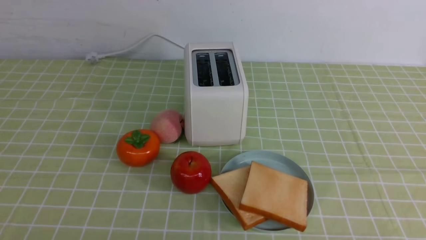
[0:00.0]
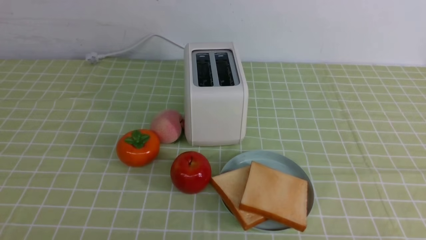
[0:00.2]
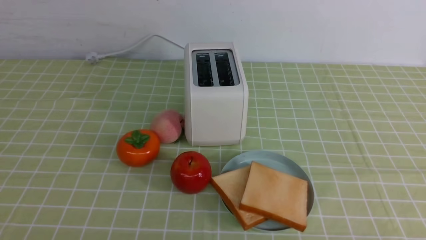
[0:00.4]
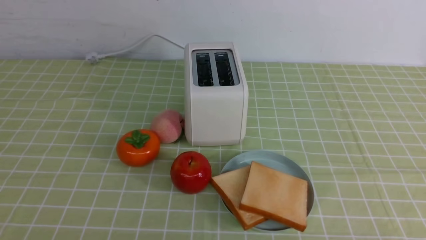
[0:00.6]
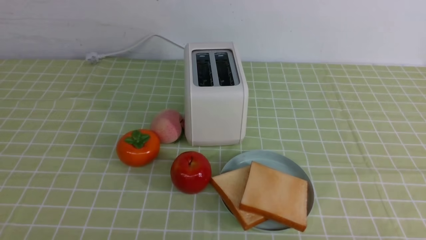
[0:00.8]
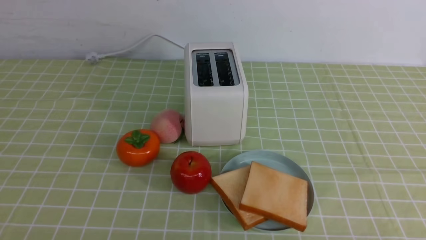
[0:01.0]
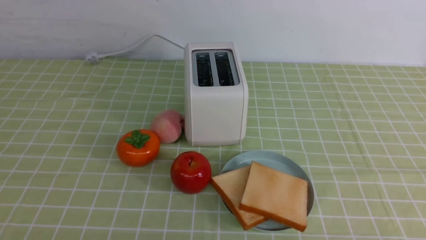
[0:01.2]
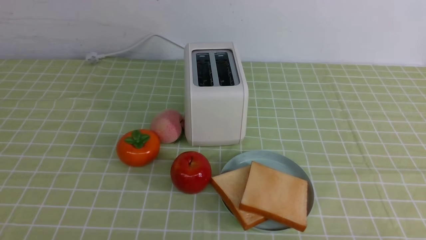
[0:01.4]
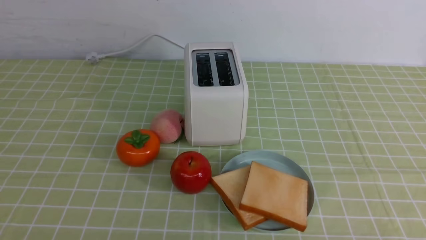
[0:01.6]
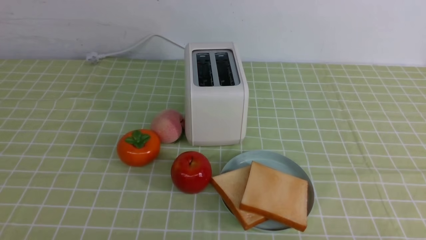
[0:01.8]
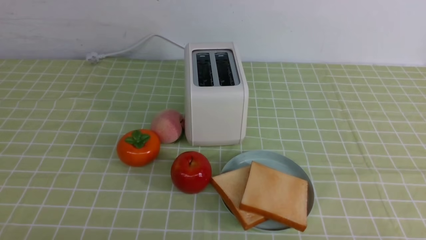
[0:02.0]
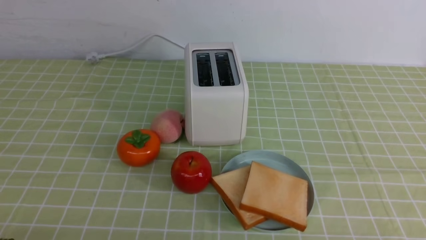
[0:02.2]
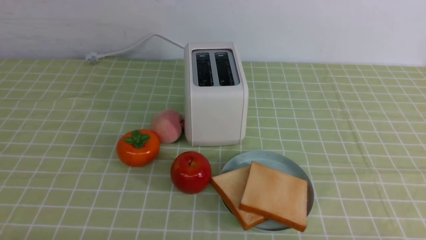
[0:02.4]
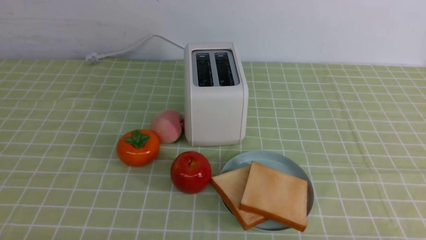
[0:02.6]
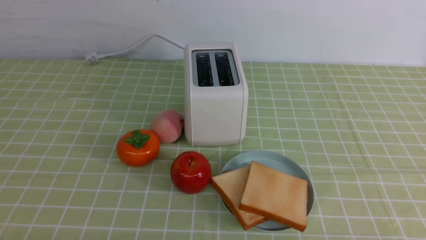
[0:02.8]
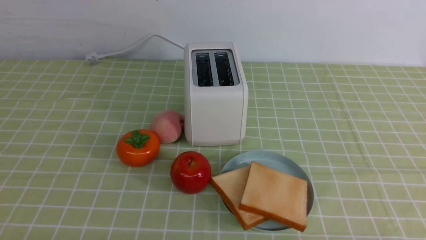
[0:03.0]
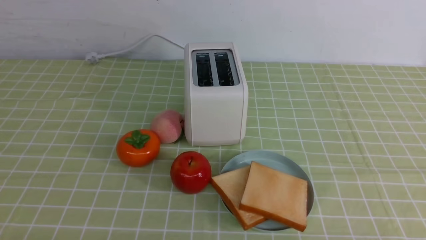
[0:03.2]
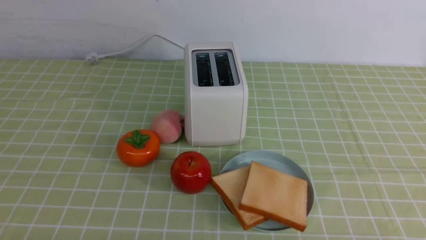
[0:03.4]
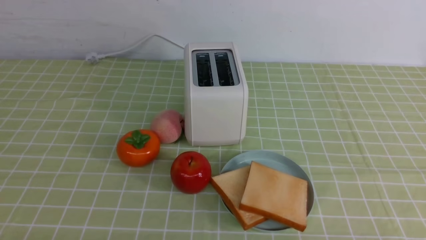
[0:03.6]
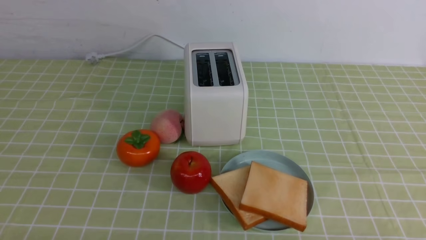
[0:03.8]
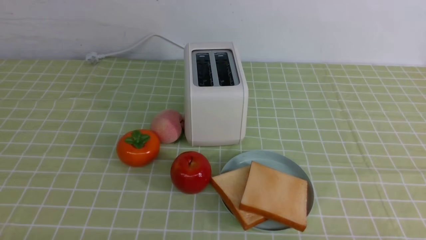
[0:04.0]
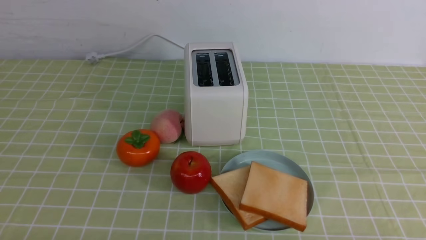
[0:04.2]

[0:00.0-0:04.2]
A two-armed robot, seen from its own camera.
Task of the whole recording: take toasted bread from bread machine on green coffee tablecloth place on plate.
0:02.8 to 0:04.2: Both grippers stay put.

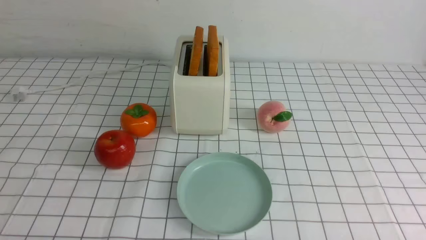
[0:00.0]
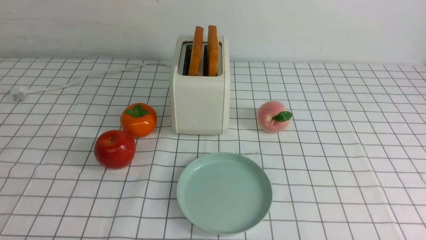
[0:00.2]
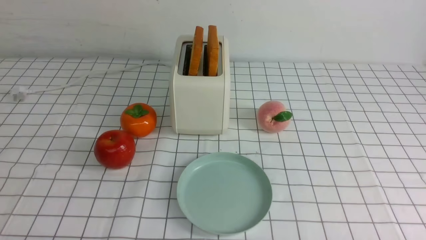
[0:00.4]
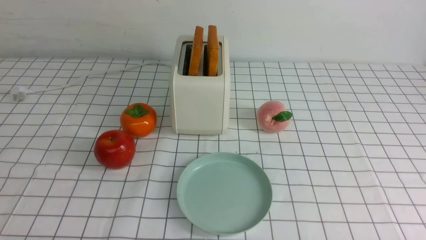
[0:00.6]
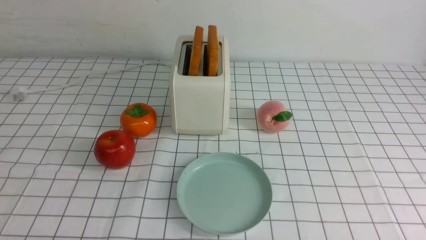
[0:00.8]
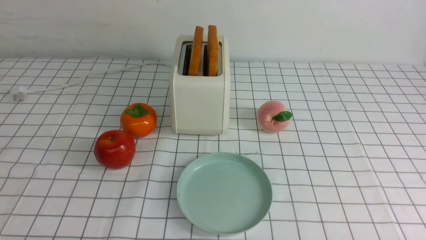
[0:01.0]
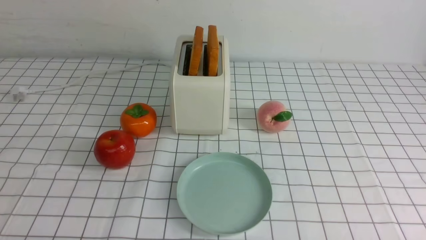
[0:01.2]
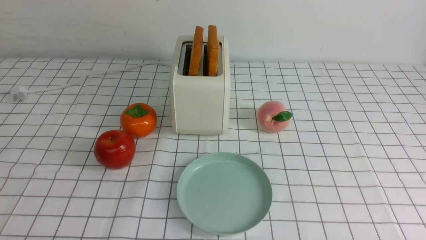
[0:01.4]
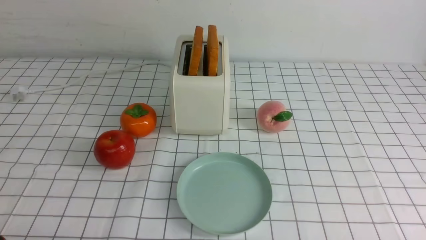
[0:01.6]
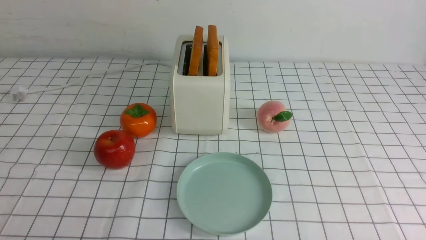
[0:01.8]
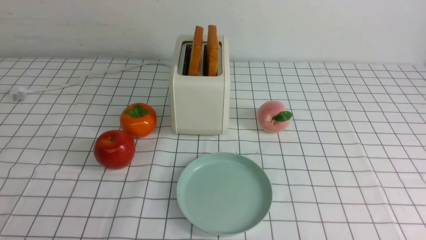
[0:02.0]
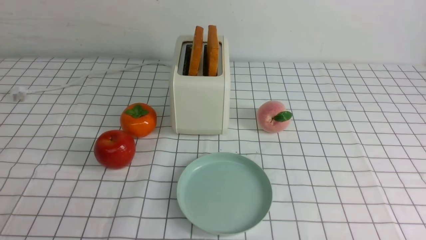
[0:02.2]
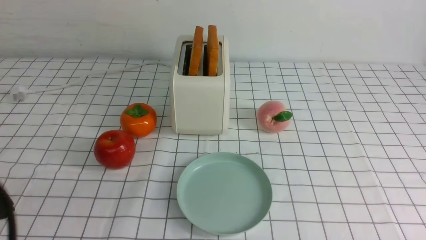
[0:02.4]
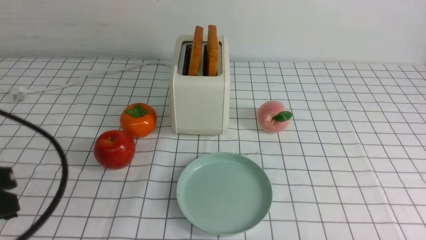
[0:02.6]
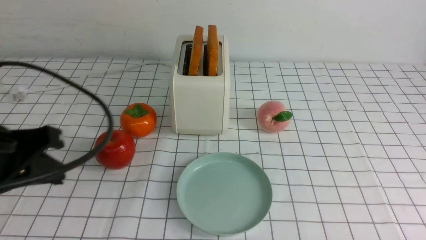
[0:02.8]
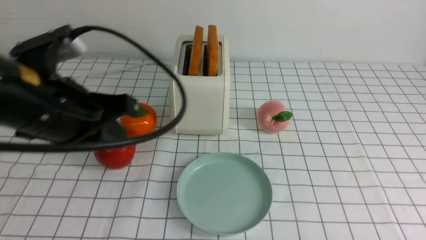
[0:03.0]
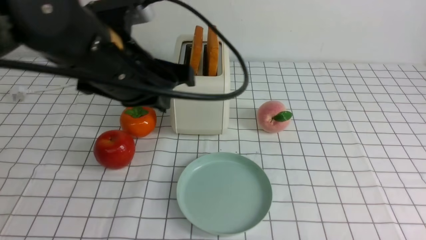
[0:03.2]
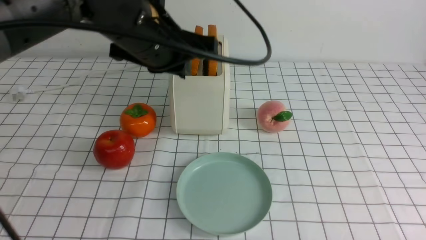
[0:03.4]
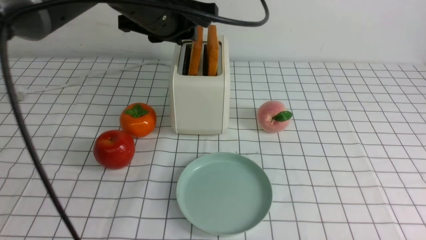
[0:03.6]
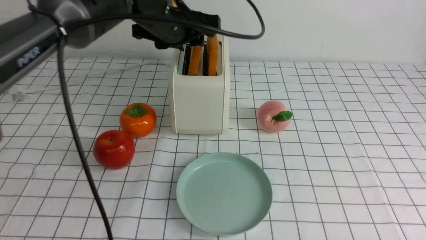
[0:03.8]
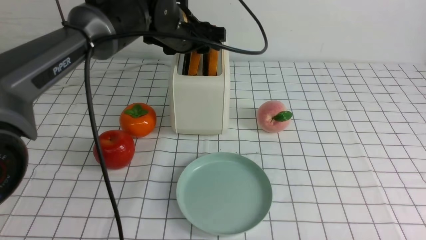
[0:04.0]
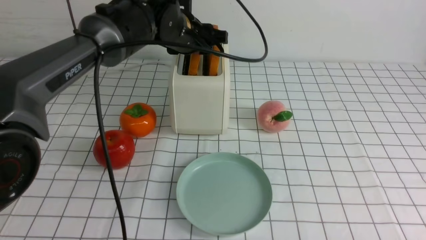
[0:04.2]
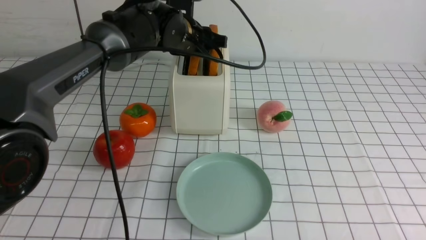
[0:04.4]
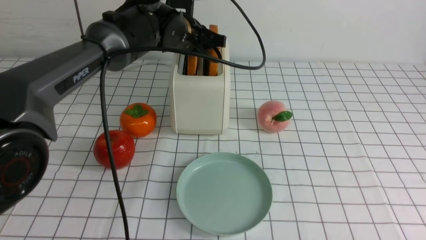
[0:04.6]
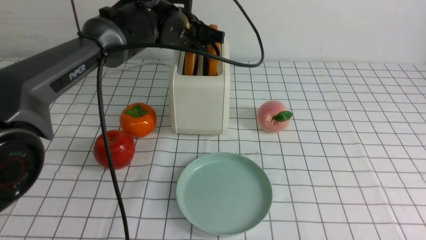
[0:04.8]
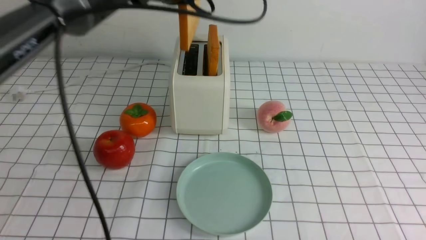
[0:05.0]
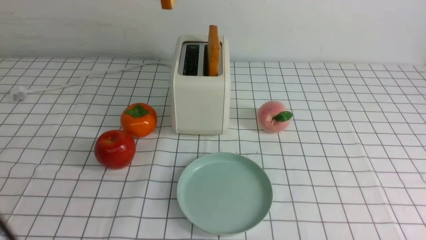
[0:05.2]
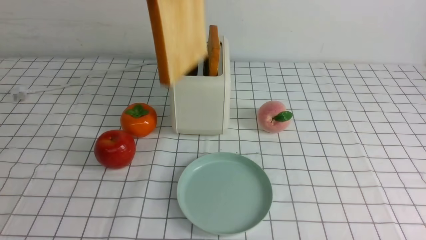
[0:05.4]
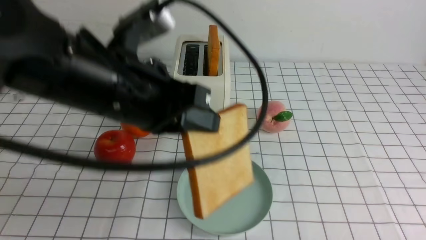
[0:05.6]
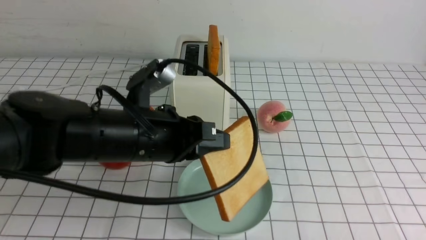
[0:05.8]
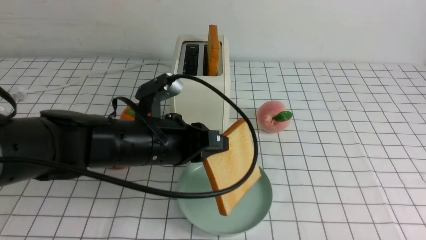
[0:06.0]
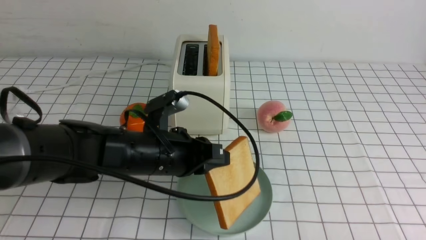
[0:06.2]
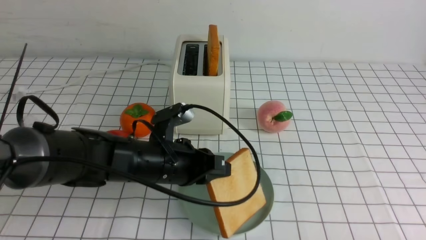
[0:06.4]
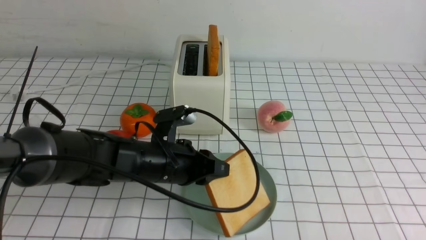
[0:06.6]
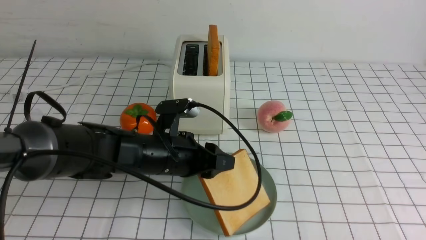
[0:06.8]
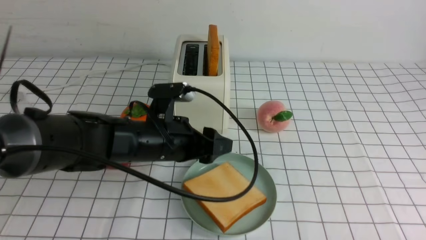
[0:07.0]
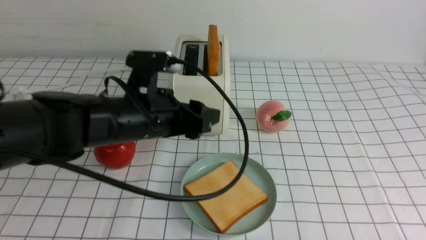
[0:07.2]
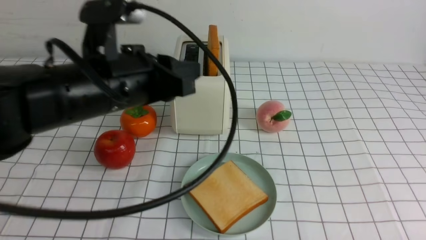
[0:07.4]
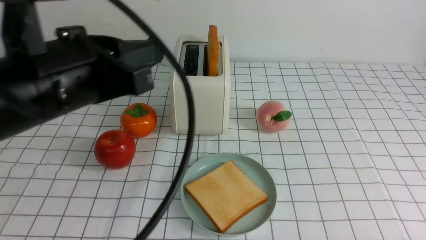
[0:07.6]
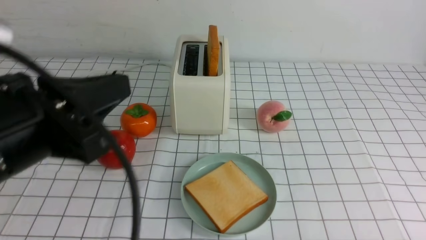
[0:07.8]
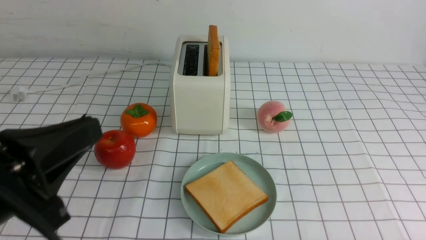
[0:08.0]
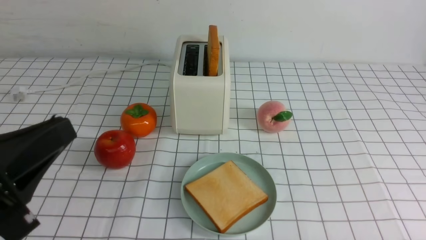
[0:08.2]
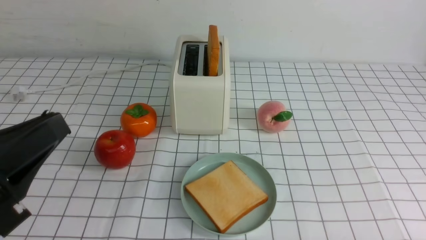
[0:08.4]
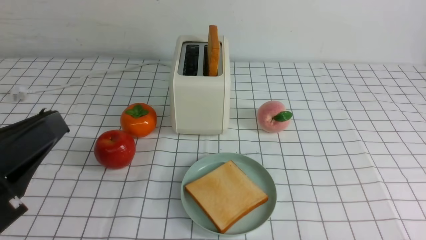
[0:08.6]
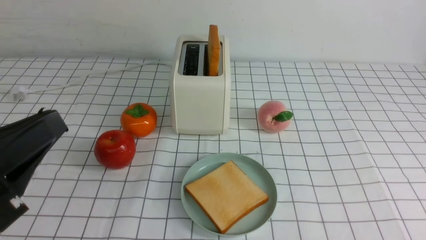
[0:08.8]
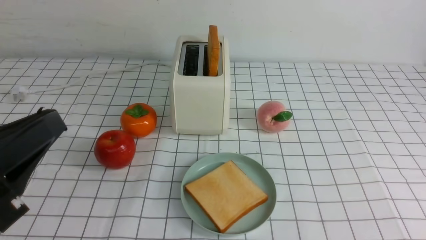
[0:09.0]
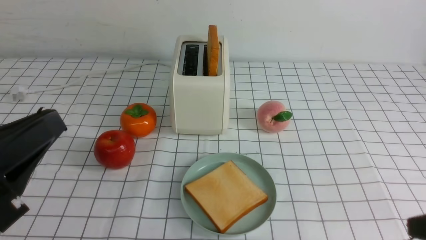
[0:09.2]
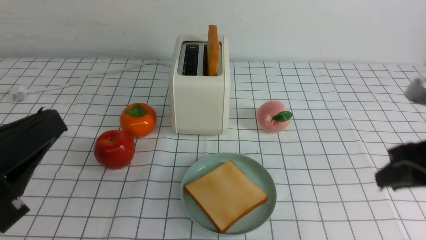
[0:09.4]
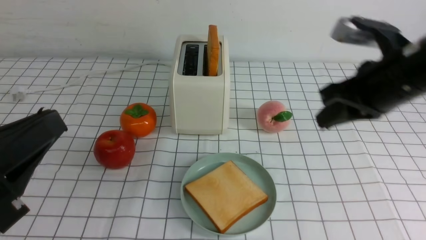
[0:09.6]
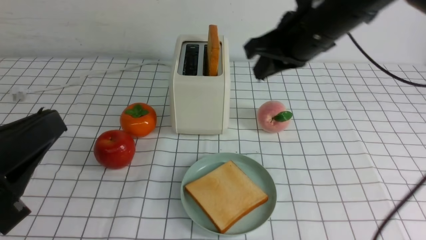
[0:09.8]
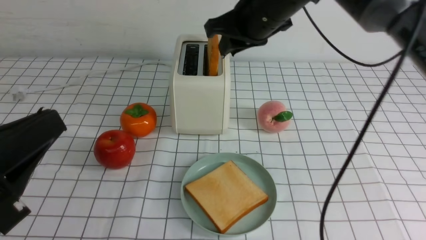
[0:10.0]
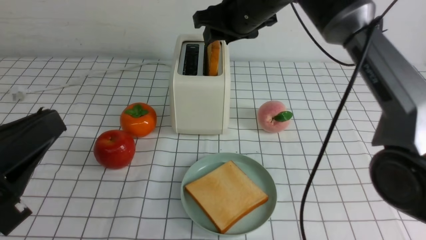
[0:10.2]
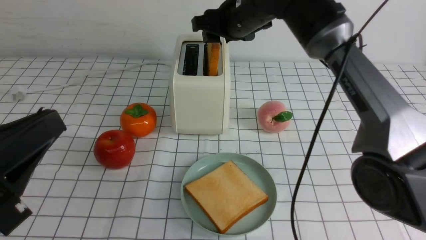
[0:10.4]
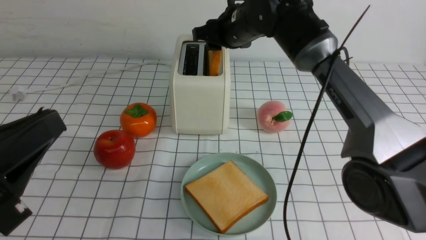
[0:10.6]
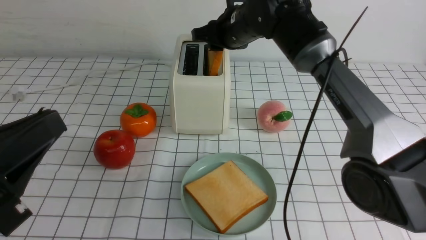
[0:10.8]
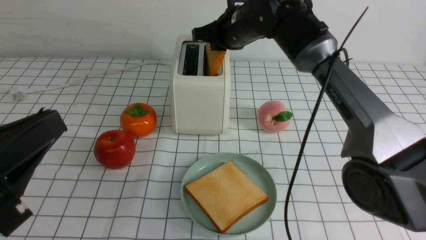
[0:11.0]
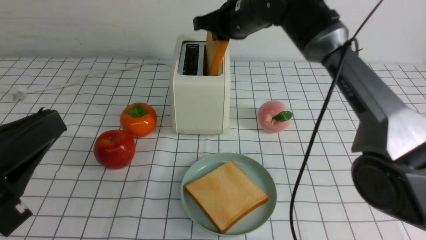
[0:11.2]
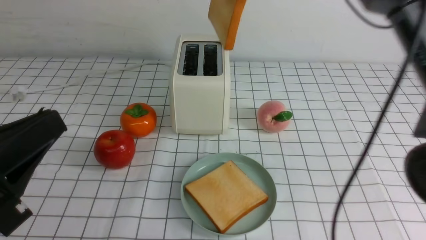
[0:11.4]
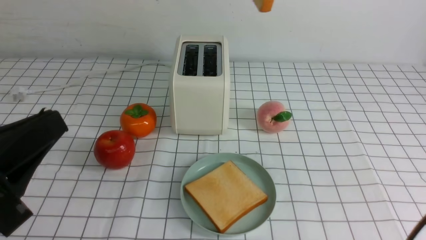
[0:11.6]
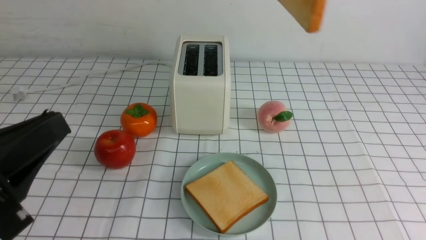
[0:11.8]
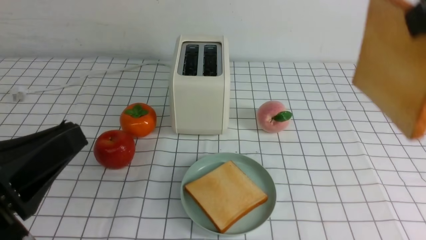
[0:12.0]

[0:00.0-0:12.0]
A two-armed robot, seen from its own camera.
Task of the whole recording: take toasted bread from bread machine on white checkered table place on plate.
Step, 0:00.0 to 0:04.8: use the left arm to take out a slice of bread.
Step, 0:05.0 to 0:07.0: use the left arm to put a slice of bread into the empty plate.
Step, 0:07.2 to 0:11.2: use the right arm to take out a slice of bread.
0:01.6 to 0:03.0: The left gripper goes approximately 25 cm forward, upward and to the right, and closes up.
0:03.0 to 0:04.4: The left gripper moves forward and to the right, about 25 cm, and opens.
0:04.4 to 0:06.0: The left gripper moves backward, some 20 cm, moves approximately 15 cm upward and comes back, and closes up.
0:06.0 to 0:07.6: The left gripper travels upward, backward and to the left by some 15 cm, and opens, then closes once more.
0:07.6 to 0:09.0: The left gripper moves backward and to the left, some 10 cm. The right gripper moves upward, about 10 cm.
0:09.0 to 0:10.4: The right gripper moves forward and to the left, approximately 50 cm, and opens.
0:10.4 to 0:12.0: The right gripper shifts approximately 30 cm backward, to the right and upward, and closes.
